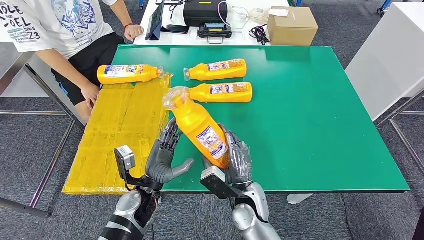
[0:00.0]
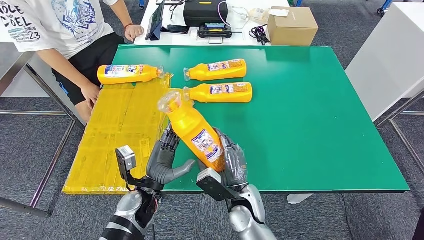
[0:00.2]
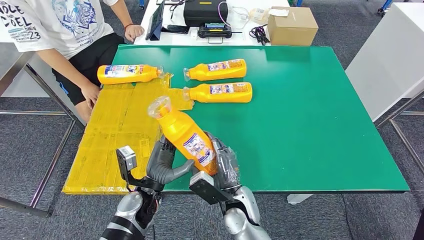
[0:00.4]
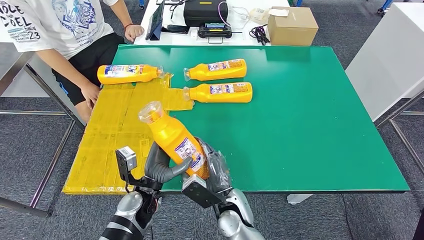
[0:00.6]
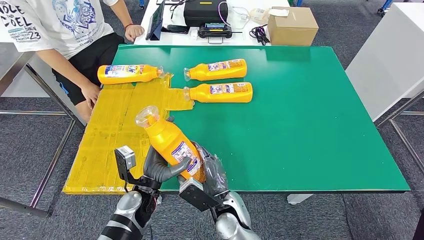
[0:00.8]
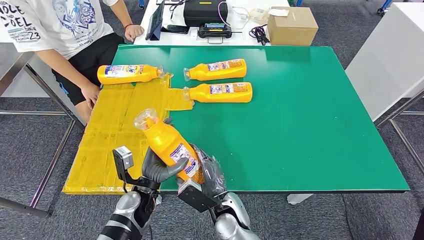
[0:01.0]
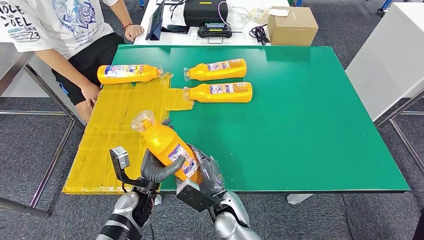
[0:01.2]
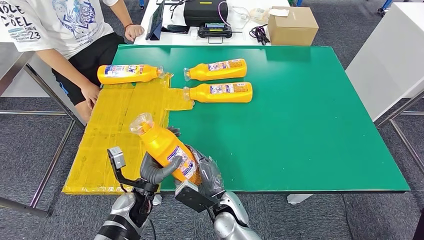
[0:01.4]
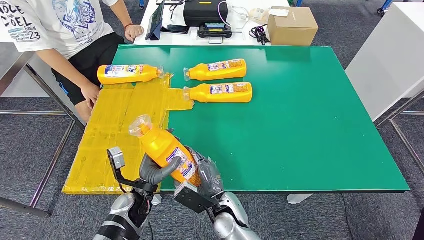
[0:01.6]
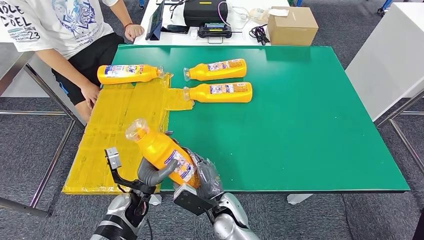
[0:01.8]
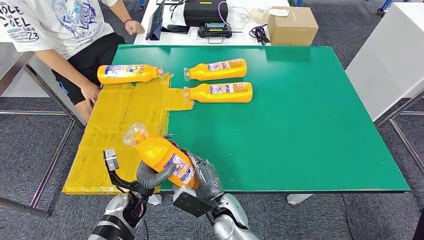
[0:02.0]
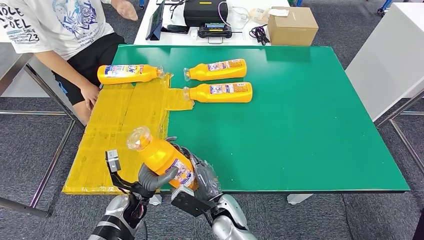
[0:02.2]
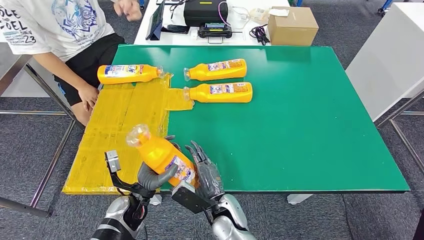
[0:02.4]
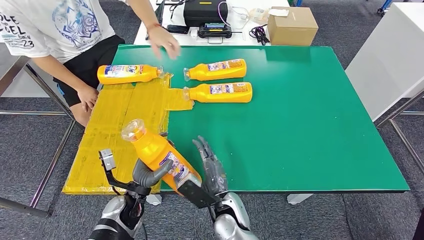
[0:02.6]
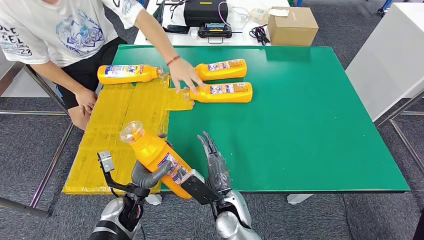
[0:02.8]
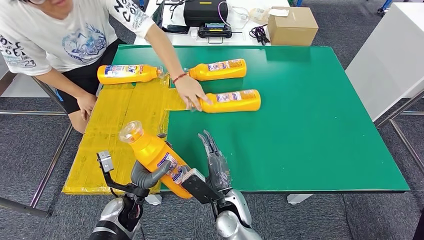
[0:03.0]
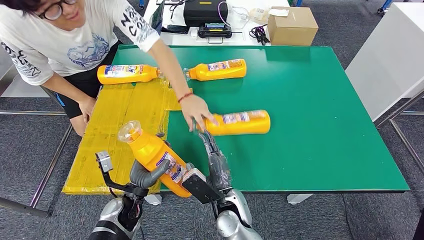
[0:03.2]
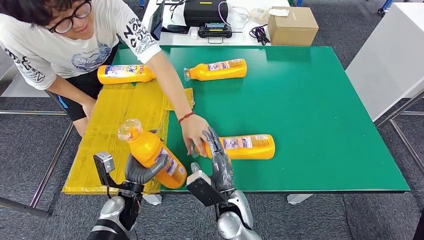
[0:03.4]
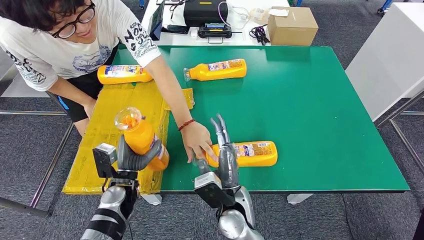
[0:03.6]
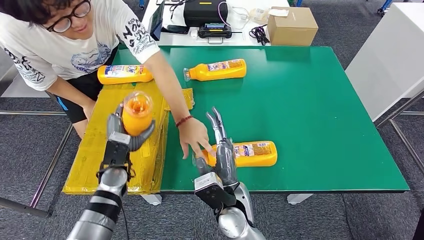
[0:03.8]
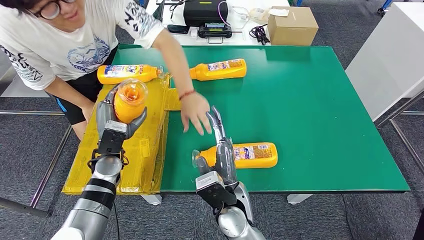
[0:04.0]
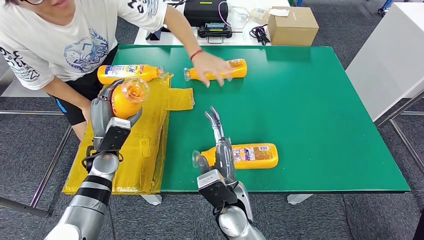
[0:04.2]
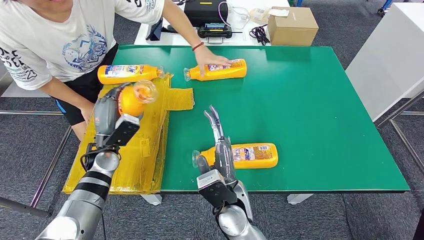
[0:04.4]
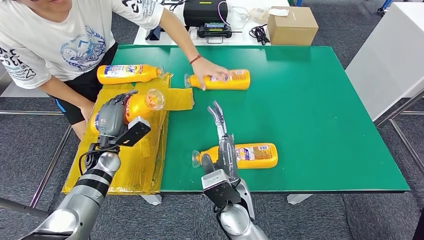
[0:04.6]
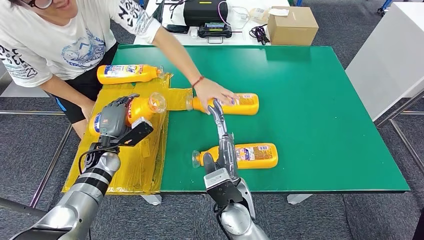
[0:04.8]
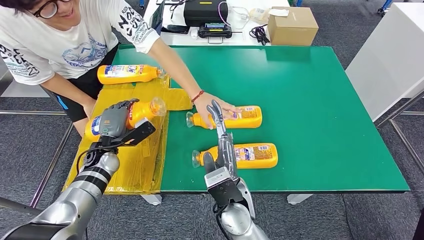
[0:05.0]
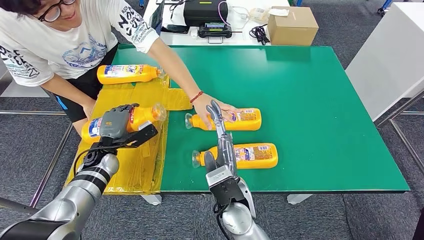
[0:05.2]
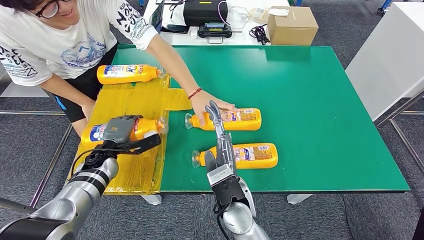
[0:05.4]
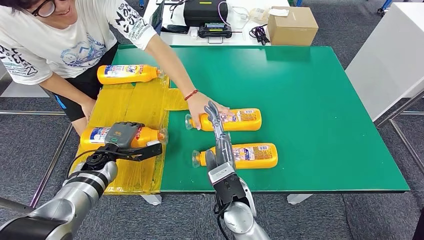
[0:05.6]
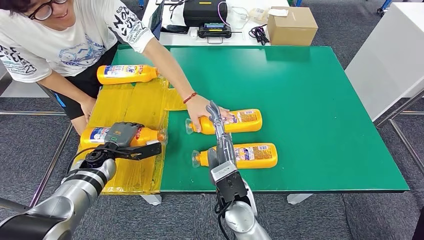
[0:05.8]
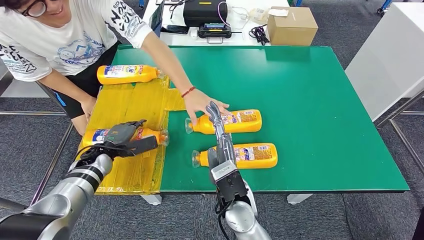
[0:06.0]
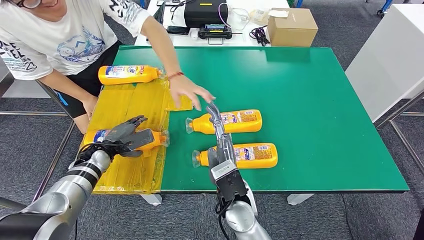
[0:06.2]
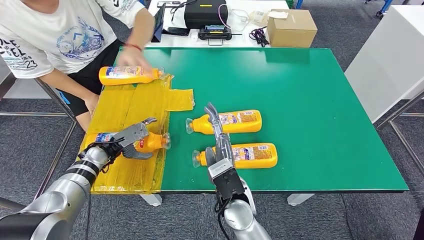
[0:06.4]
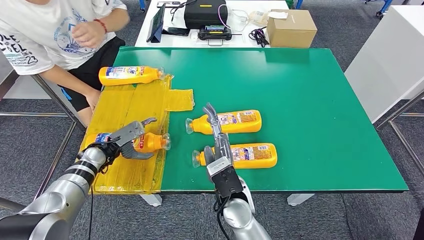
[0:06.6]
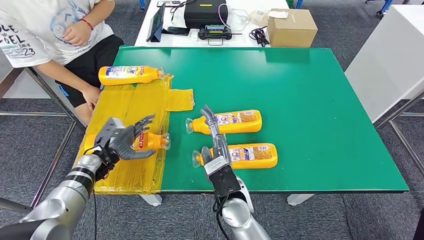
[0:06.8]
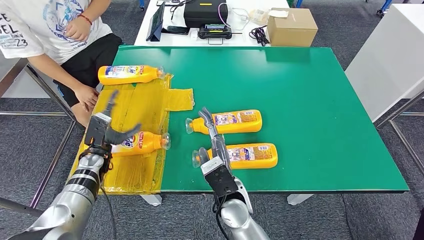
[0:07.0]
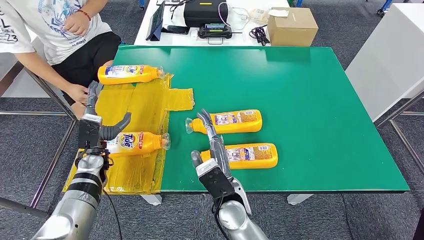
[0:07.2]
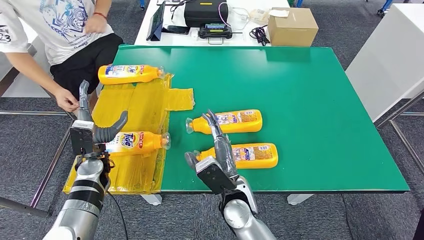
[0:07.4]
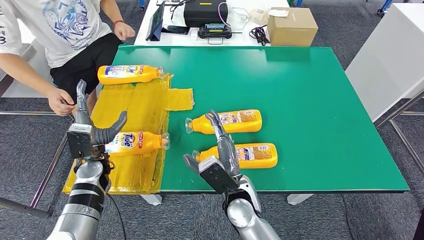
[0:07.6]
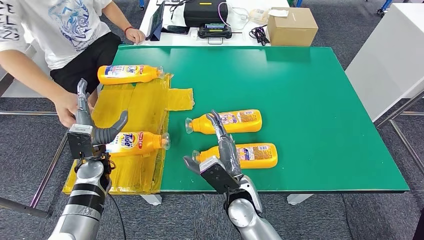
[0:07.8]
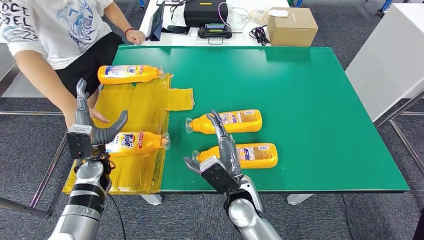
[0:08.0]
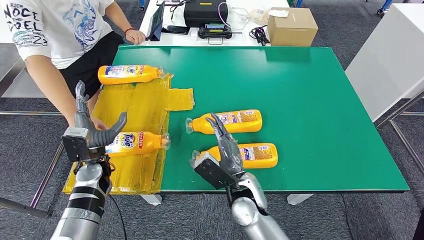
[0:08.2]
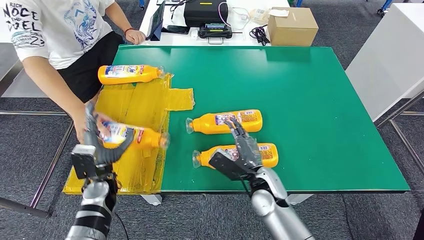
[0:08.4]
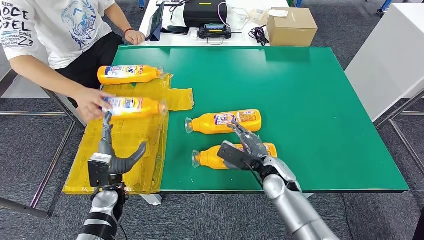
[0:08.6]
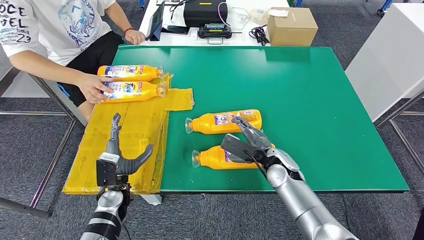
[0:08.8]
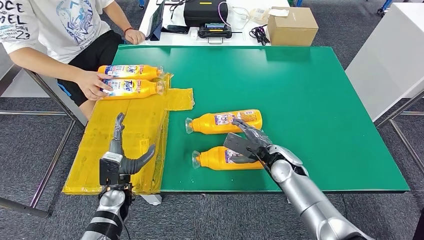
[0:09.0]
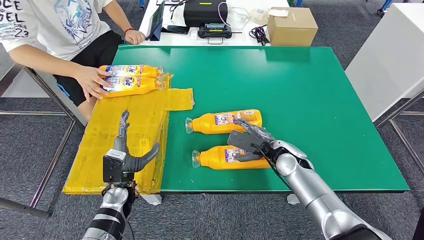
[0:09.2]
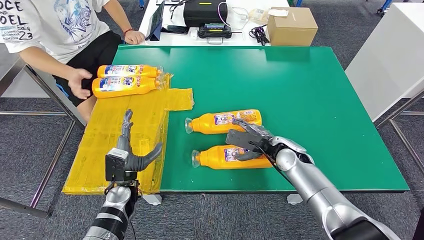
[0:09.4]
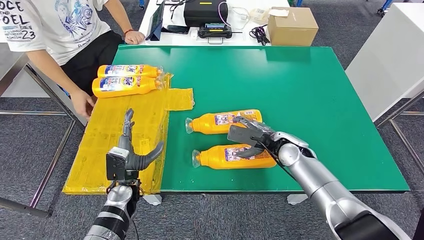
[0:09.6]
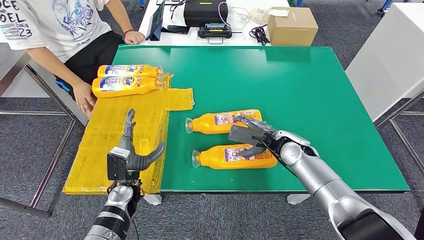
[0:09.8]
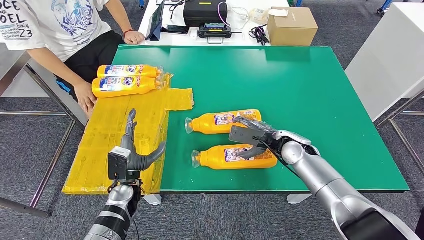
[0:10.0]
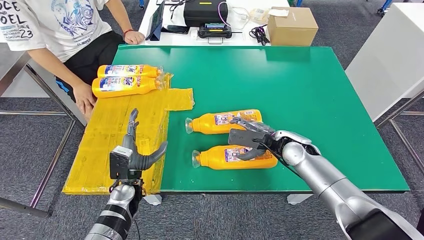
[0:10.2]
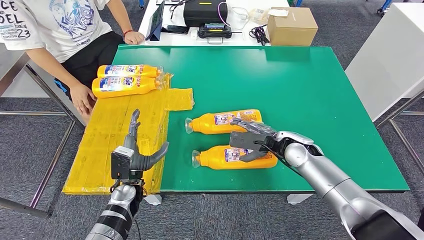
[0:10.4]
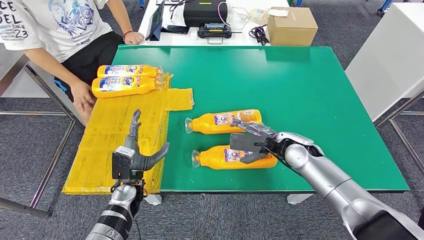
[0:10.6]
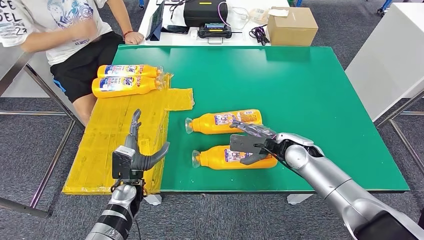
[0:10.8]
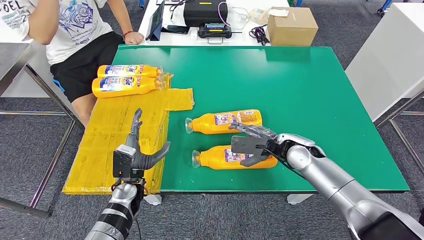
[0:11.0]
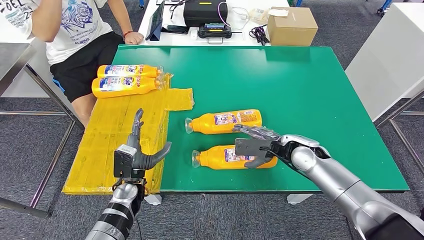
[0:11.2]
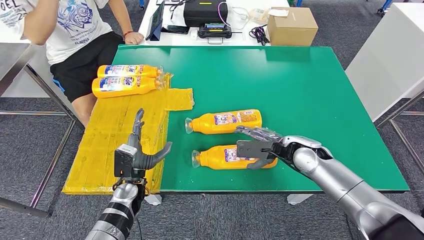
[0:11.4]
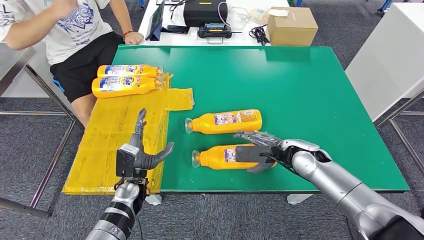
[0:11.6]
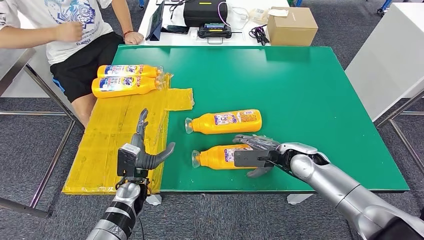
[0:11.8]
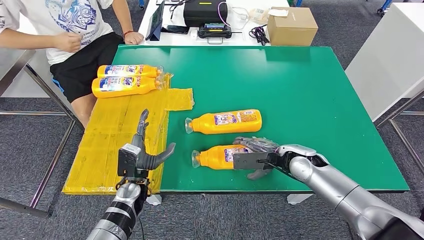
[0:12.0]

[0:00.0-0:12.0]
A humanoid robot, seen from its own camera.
Step, 0:00.0 to 0:07.4: Flip the fast-moving consumer goods bottle to the front side.
0:00.0 to 0:01.6: The right hand is displaced to the left by roughly 5 cm.
0:01.6 to 0:03.0: The hands make only small movements.
0:09.0 to 0:10.4: The right hand ends up some 5 cm from where it was.
0:10.4 to 0:12.0: The hands stay close to where they were, moving slightly.

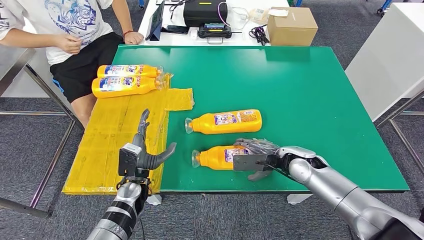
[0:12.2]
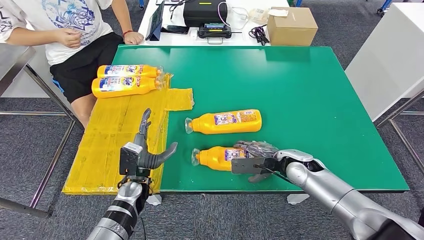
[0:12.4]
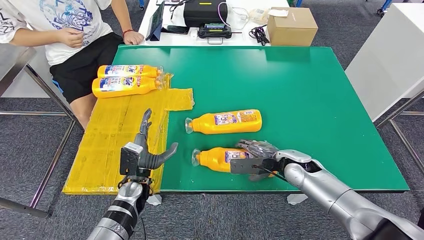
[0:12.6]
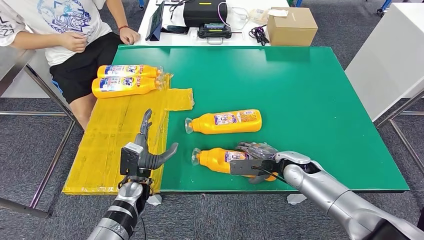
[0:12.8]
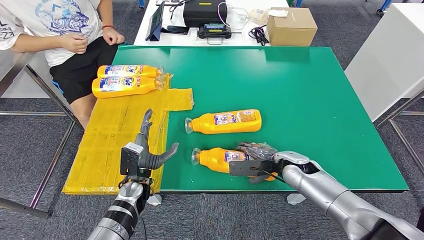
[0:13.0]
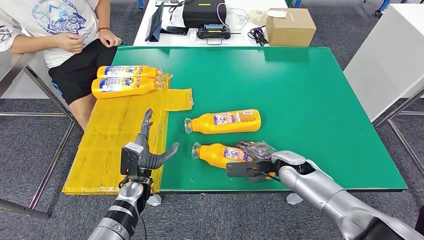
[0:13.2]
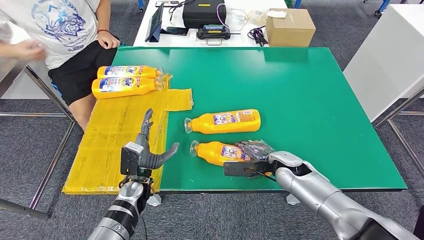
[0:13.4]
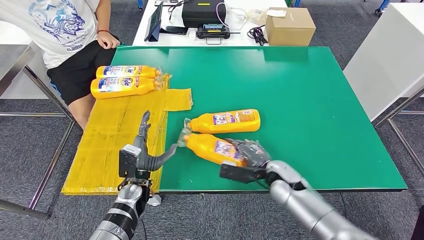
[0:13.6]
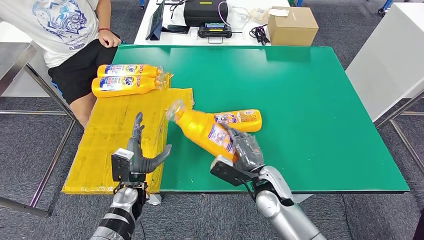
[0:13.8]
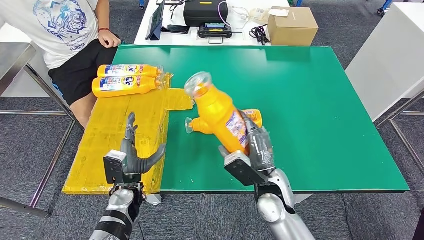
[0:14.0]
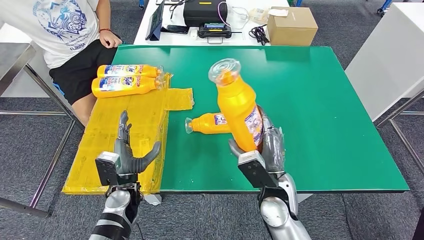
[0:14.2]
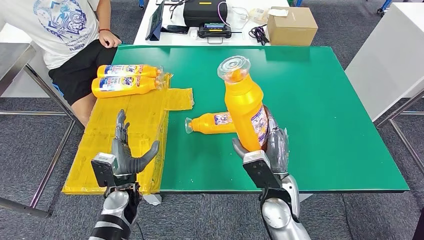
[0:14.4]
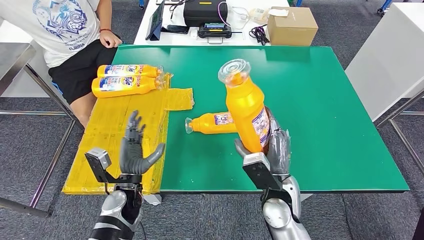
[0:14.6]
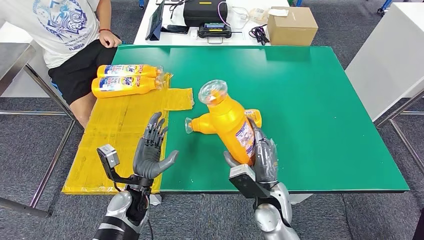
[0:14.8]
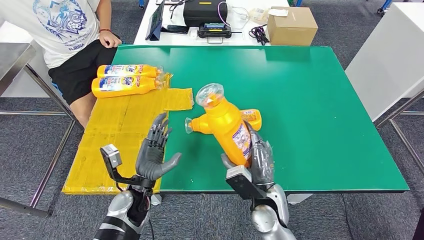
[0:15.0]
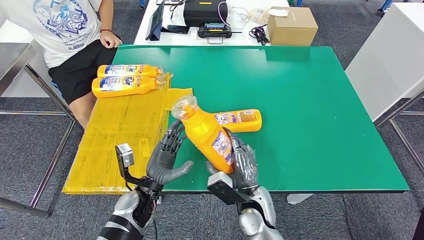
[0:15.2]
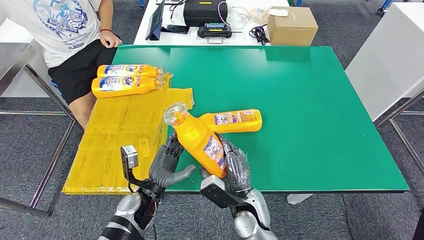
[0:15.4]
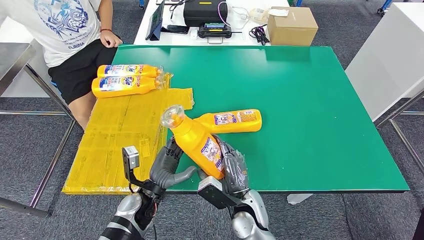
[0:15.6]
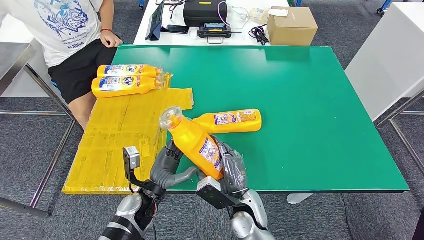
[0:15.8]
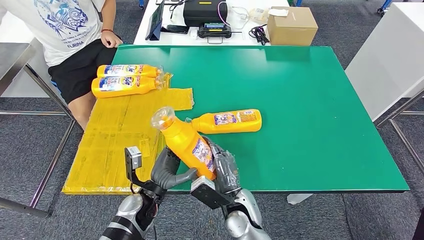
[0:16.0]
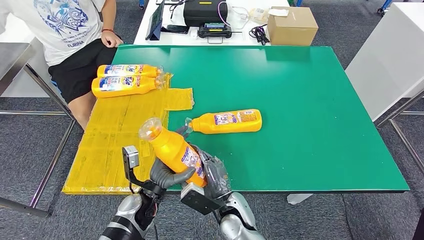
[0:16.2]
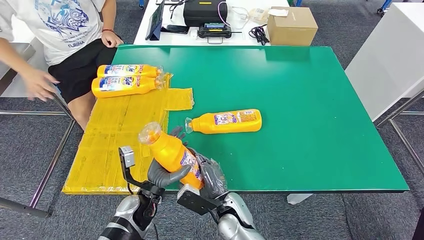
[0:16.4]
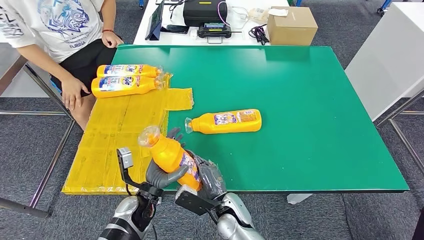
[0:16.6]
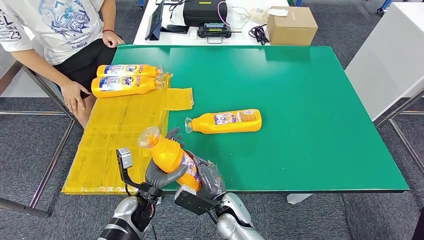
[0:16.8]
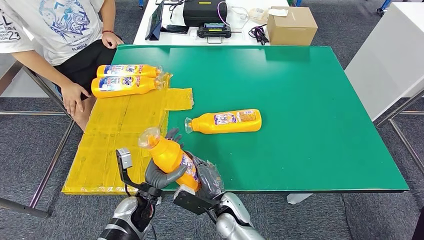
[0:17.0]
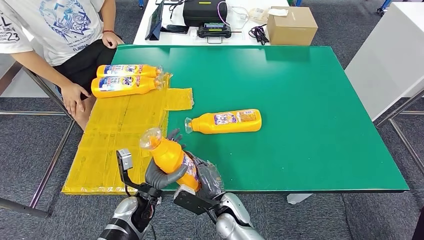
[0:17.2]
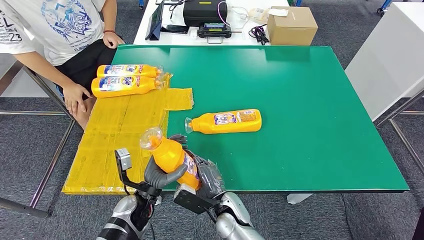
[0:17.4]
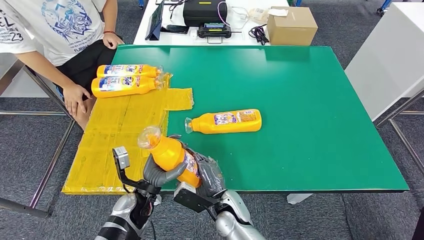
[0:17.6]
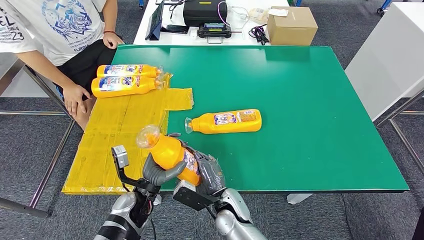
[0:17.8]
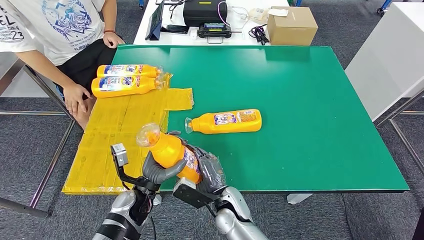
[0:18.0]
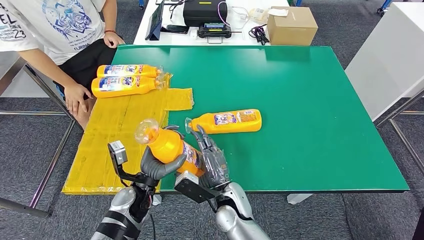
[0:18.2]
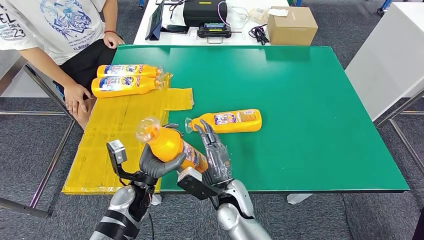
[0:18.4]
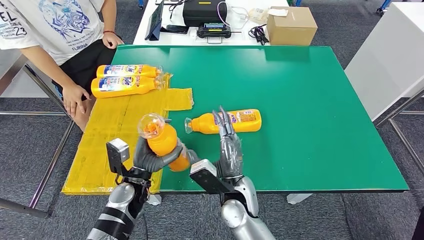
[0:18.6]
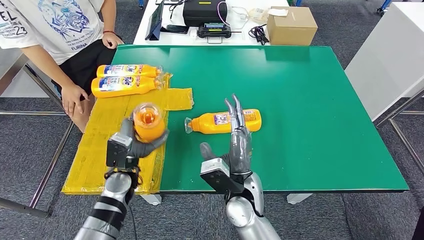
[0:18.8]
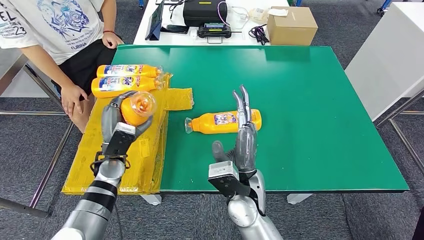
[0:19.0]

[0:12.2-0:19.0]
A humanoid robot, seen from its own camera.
Step, 0:12.6 to 0:16.0: Pick up the fast-moving consumer goods bottle from the table.
0:15.0 to 0:16.2: The right hand heads to the left, covering roughly 5 cm.
0:16.2 to 0:17.6: The hands stay close to where they were, moving slightly.
0:17.6 to 0:19.0: The right hand is displaced upward by roughly 15 cm. Meanwhile the left hand moves forward, to the left and upward, about 15 cm.
